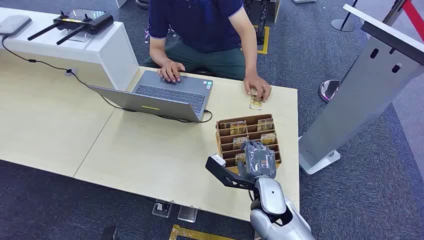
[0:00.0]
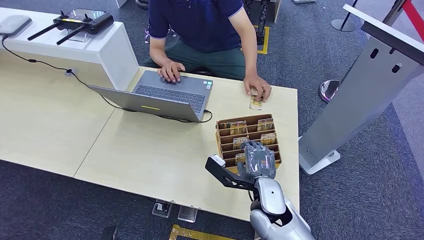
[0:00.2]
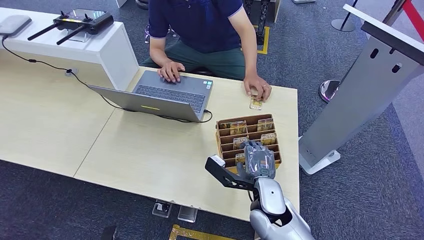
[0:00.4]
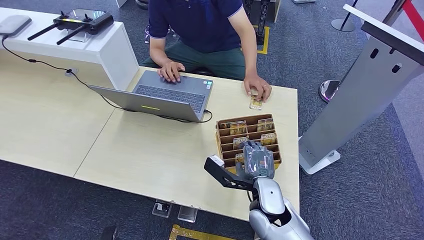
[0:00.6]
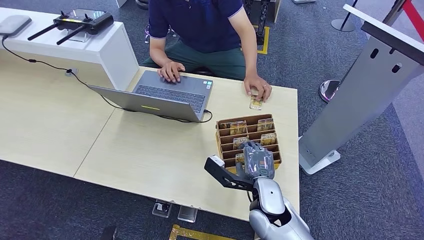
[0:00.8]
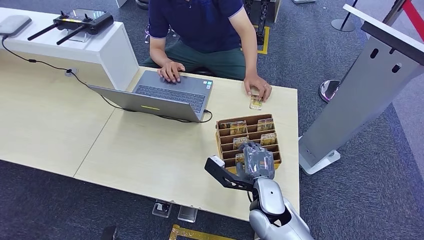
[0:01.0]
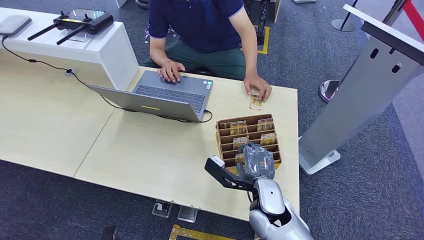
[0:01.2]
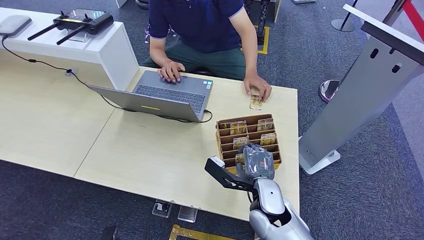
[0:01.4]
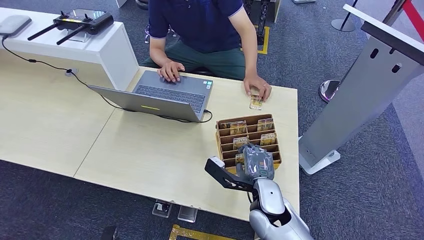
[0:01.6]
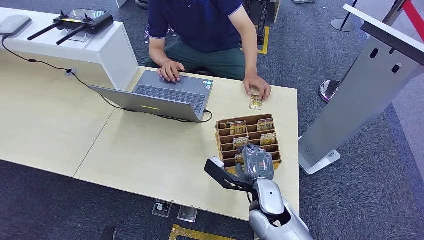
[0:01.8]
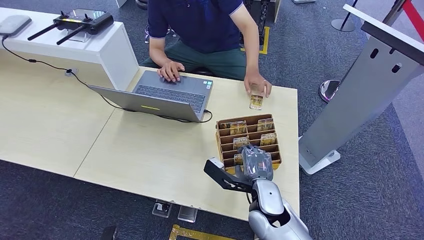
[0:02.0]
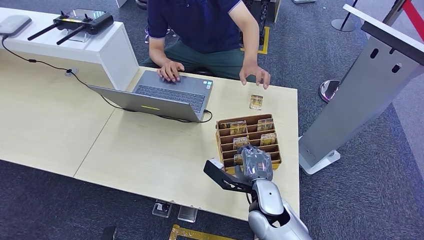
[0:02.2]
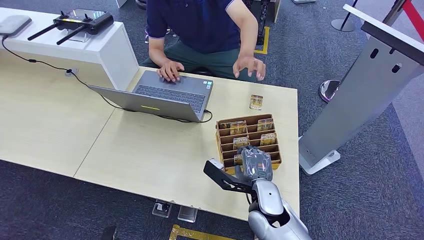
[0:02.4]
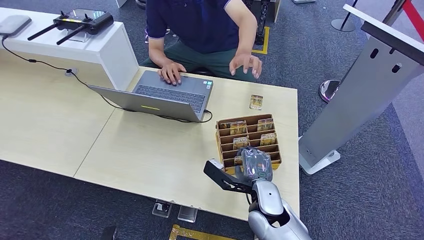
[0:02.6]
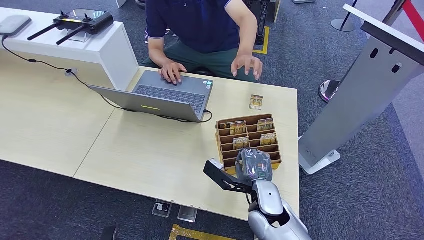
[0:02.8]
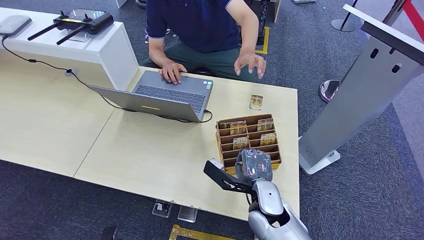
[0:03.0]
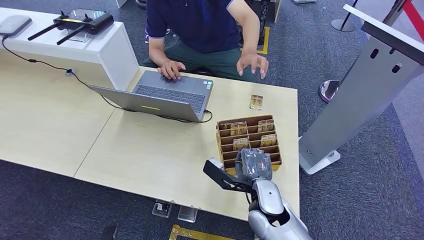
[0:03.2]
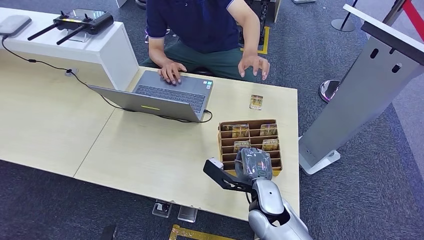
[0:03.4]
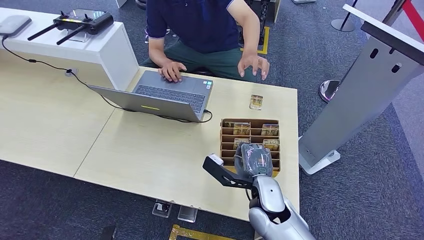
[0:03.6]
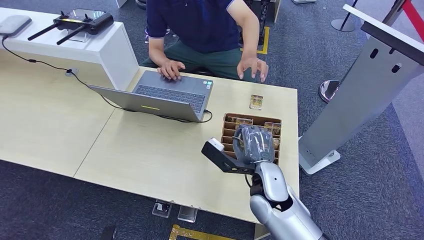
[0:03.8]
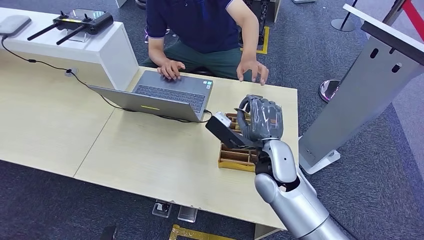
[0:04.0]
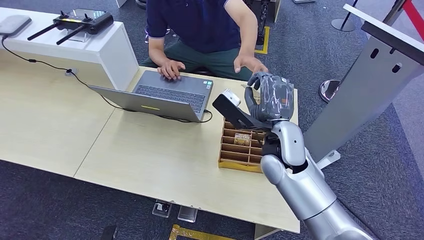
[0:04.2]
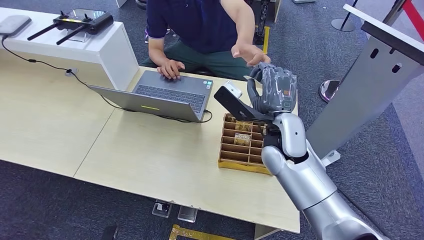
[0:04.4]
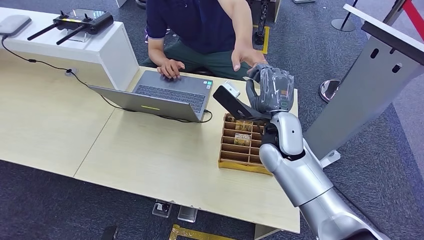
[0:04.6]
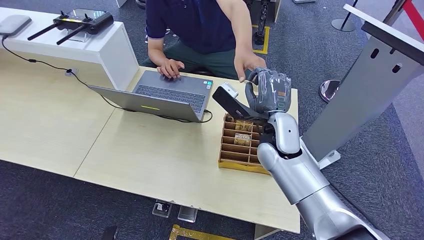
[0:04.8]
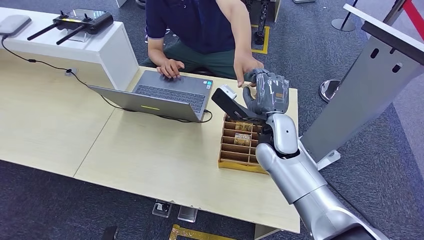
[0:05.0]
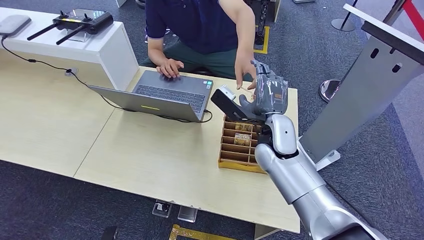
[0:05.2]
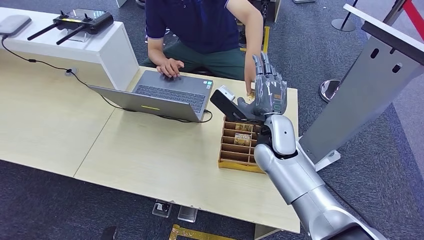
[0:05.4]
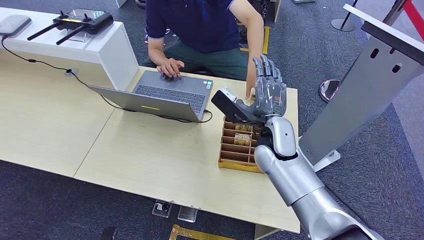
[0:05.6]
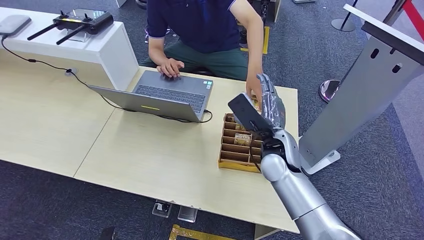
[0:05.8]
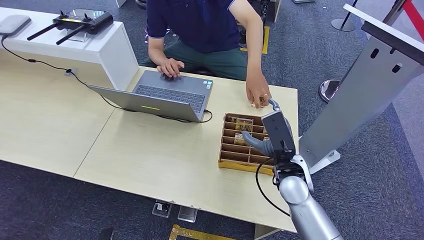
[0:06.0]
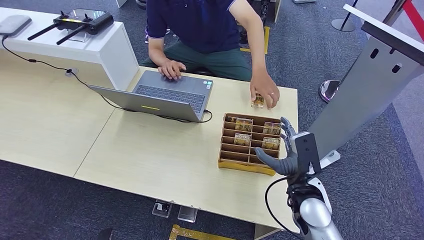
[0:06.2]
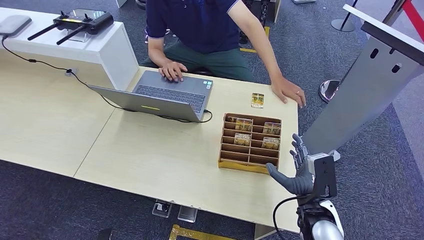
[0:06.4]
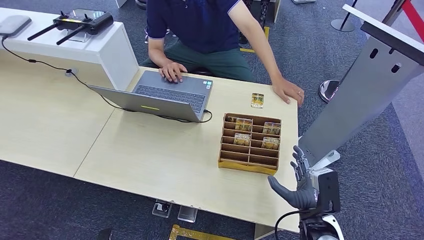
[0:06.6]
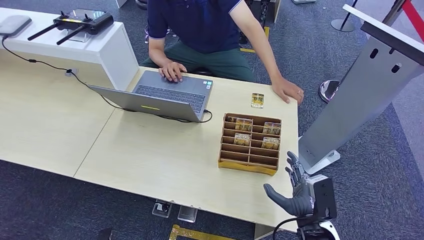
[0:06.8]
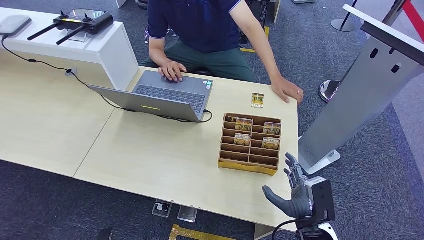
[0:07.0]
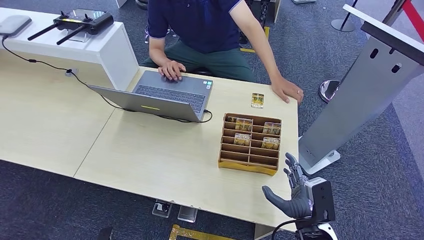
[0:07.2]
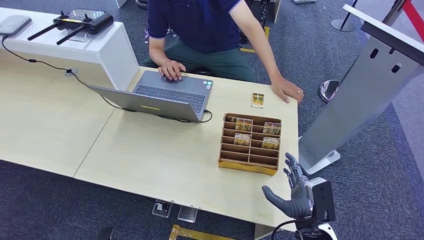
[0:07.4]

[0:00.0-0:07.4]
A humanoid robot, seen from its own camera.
Step, 0:00.0 to 0:03.4: Pick up the key card from the card box.
Step, 0:03.6 to 0:07.4: Hand the key card to the target.
0:01.4 to 0:03.0: The two hands keep their place.
0:03.0 to 0:04.4: The right hand heads upward and forward, covering approximately 20 cm.
0:04.4 to 0:06.0: The right hand travels downward by approximately 10 cm.
0:06.0 to 0:07.4: The right hand goes about 15 cm backward, to the right and downward.

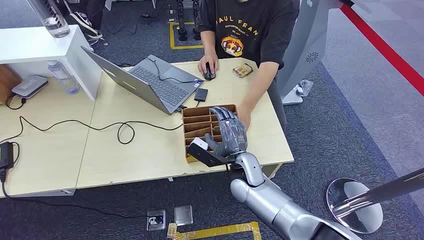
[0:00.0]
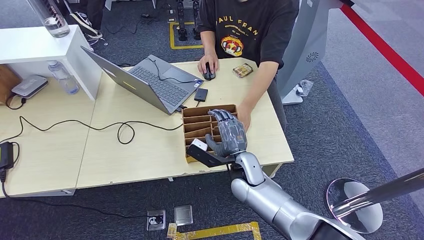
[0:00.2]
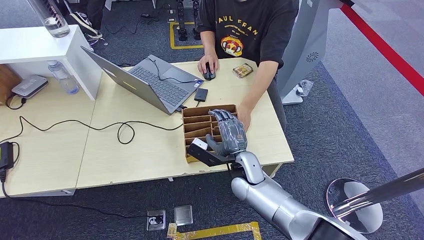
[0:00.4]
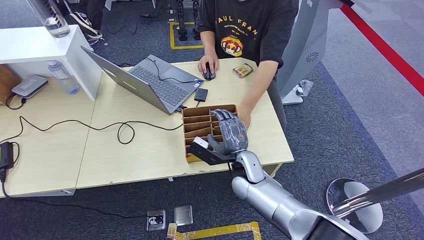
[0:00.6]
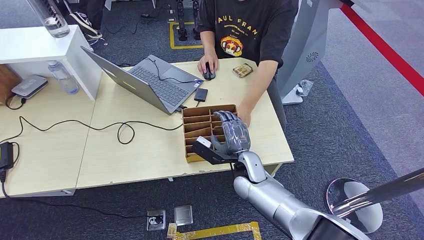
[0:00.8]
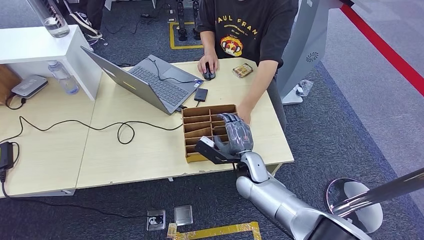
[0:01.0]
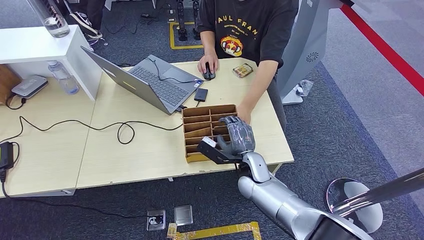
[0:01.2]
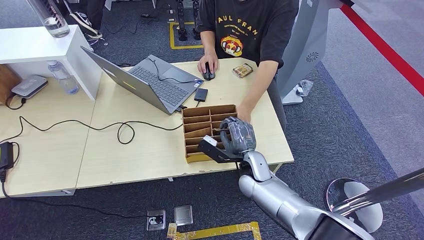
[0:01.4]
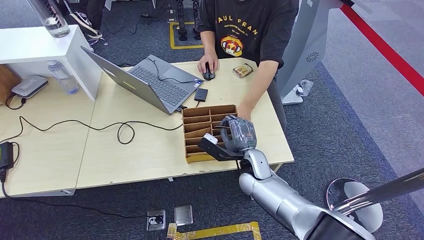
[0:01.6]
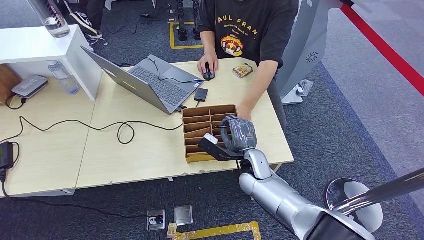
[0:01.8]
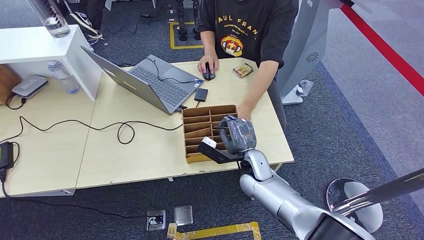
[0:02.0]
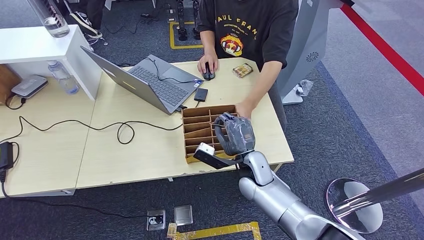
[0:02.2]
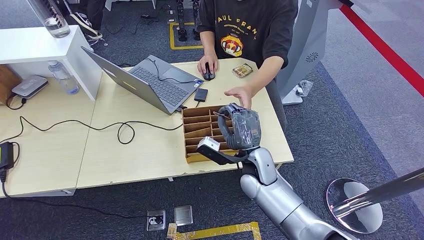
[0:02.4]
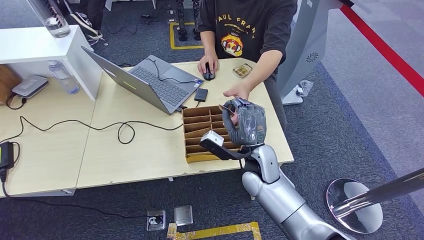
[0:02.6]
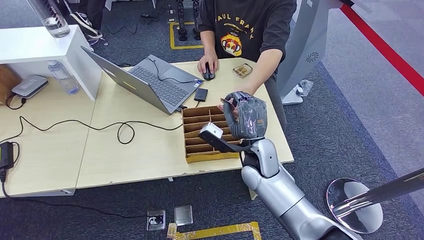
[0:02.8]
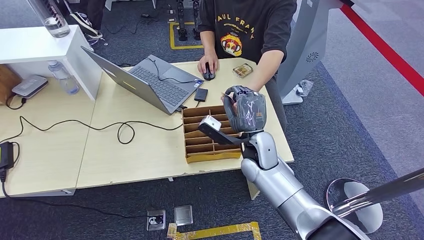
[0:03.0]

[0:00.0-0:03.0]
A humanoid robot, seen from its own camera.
Step, 0:00.0 to 0:02.2: Pick up the key card from the card box.
Step, 0:02.4 to 0:03.0: Hand the key card to the target.
0:01.6 to 0:03.0: The right hand shifts approximately 10 cm upward.
